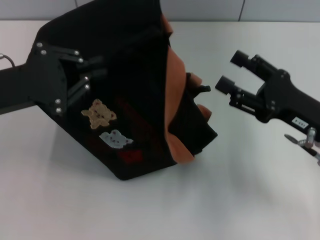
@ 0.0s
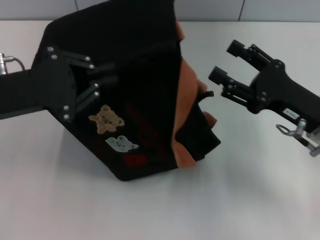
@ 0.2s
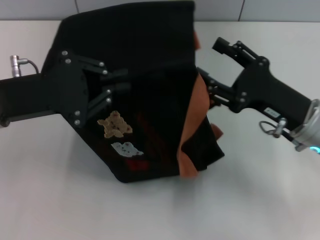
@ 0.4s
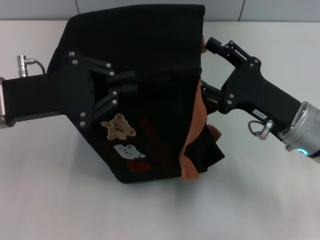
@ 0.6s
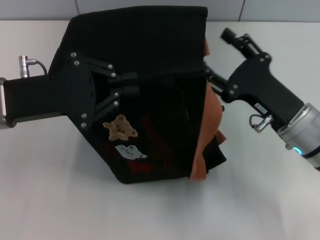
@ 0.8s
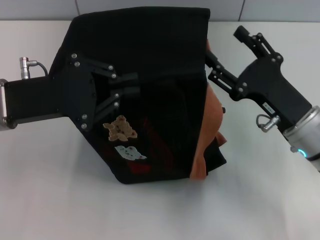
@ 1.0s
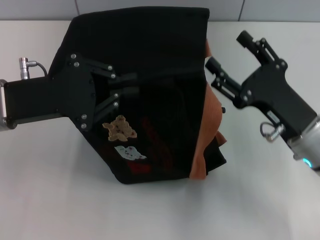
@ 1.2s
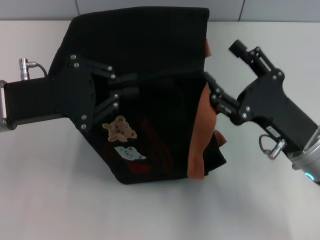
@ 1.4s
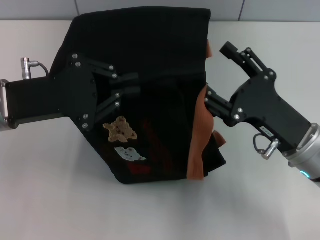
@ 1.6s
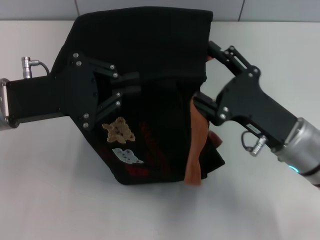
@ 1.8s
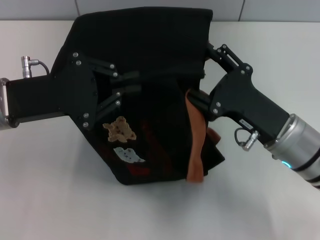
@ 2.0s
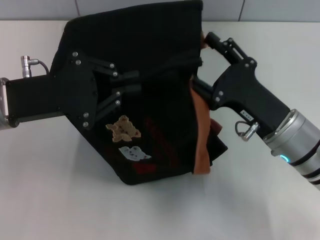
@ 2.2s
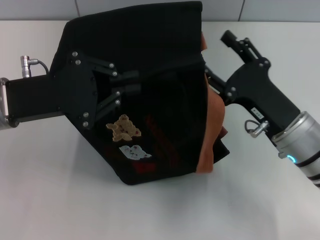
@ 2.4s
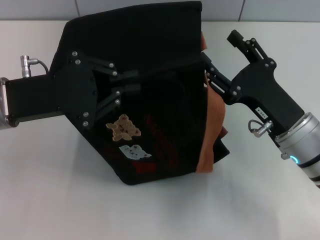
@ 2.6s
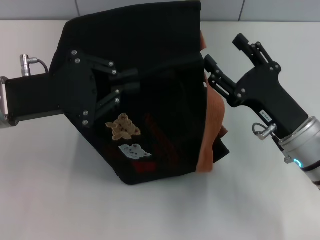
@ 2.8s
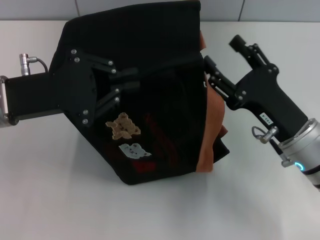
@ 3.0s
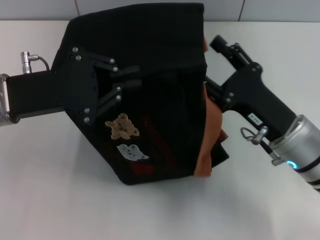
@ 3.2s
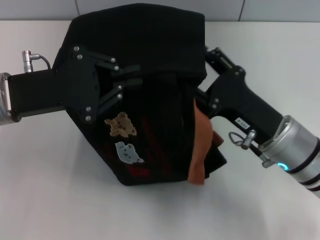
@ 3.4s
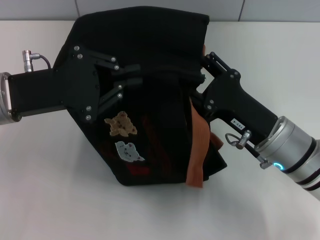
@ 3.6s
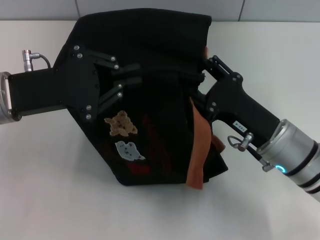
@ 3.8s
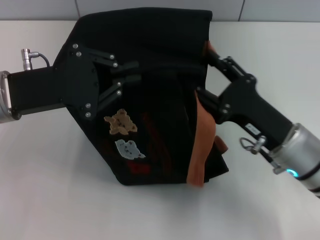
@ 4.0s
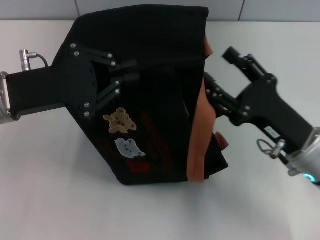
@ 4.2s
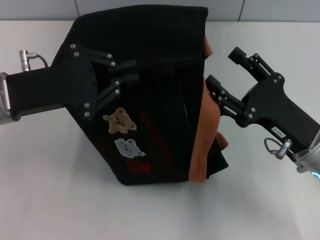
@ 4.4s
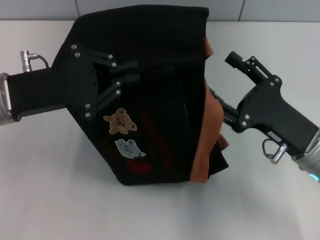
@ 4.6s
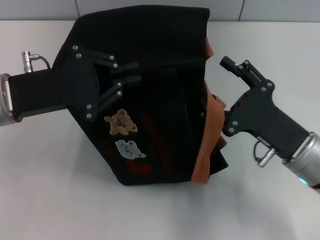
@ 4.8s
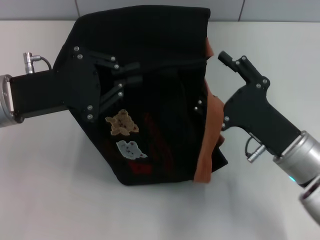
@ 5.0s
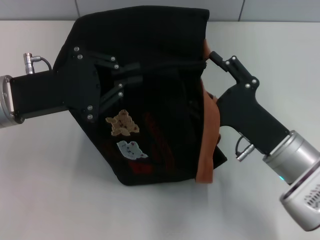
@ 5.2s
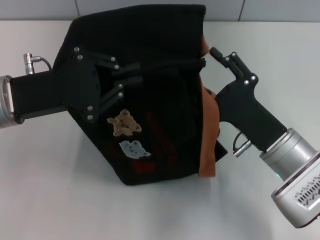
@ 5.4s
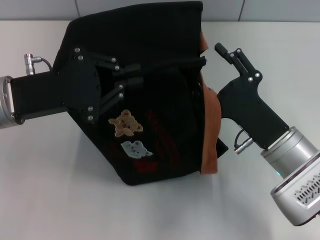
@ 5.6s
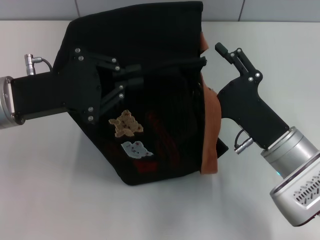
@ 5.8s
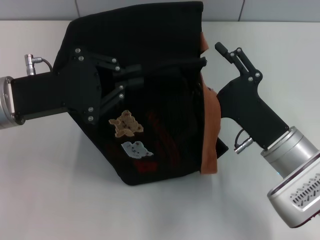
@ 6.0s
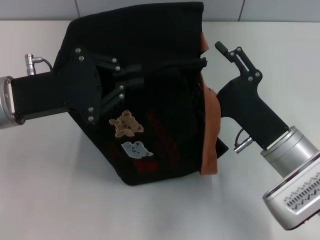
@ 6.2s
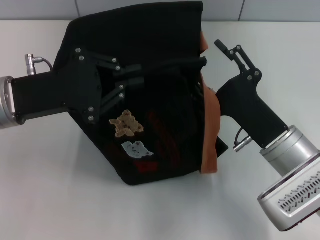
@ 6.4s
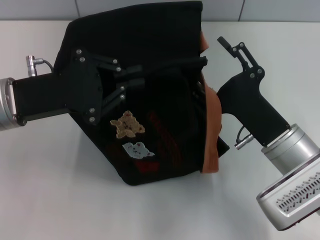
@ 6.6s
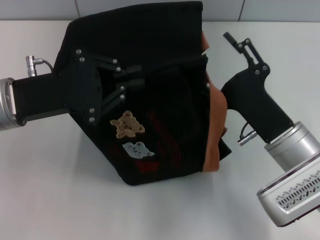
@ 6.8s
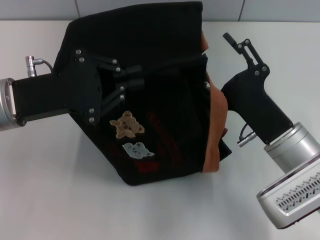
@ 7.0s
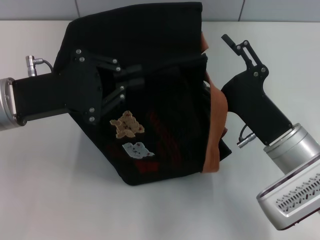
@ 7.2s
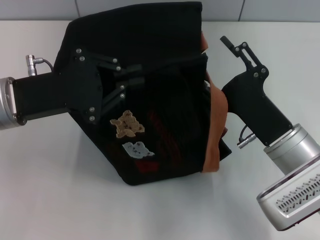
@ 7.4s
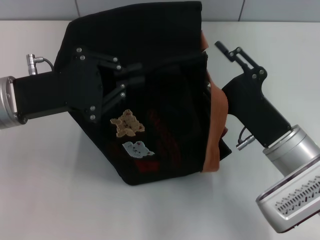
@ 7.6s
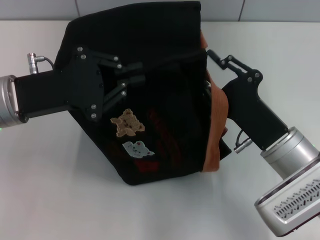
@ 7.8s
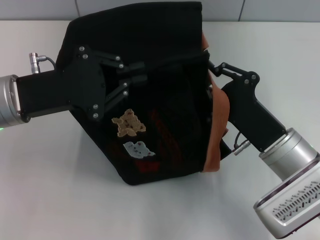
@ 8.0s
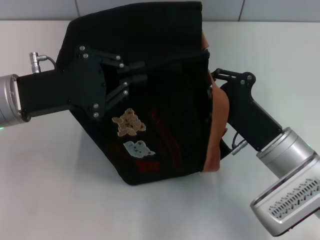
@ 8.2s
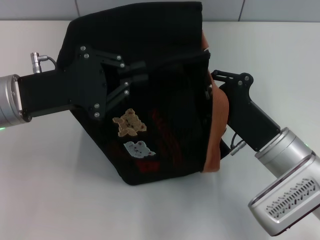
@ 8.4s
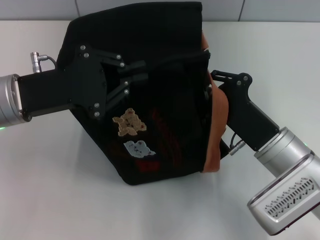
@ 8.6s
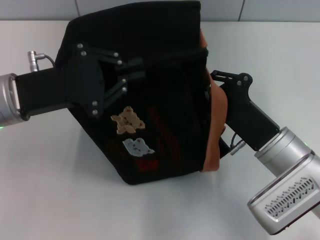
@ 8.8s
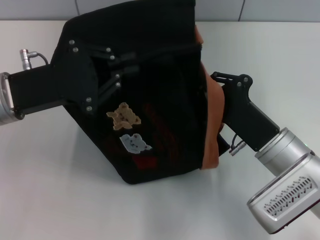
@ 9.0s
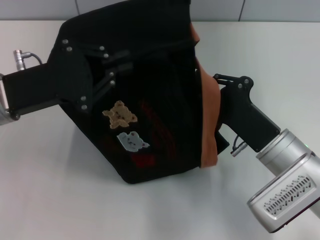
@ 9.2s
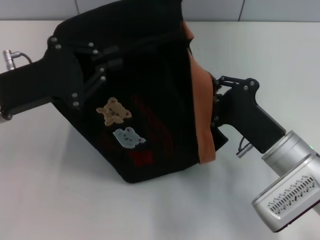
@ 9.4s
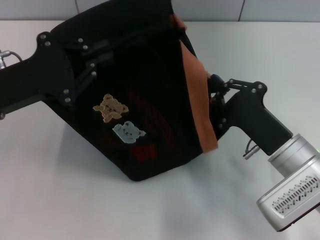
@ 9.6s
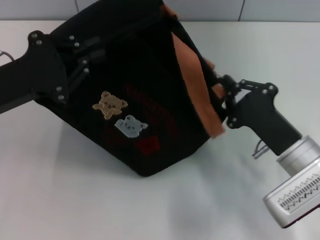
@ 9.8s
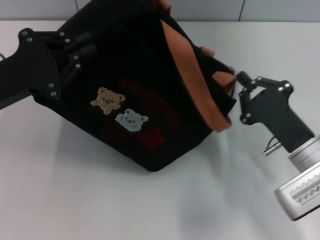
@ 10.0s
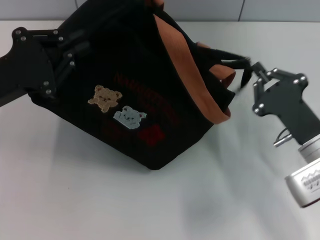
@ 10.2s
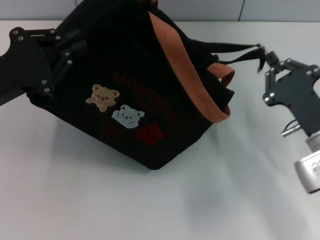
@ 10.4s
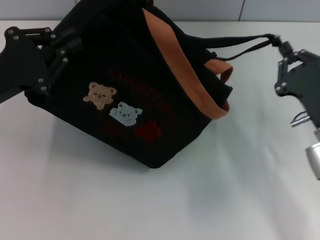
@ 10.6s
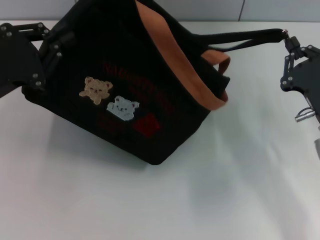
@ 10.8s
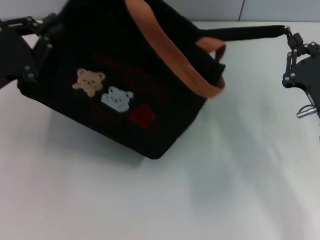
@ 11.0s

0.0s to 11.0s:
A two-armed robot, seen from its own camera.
Step, 0.0s to 10.6s: Pull open the zipper with your right hand.
0.0s to 1.6s: The right gripper ends up some 5 cm from where it was.
1.6s to 3.2s: The grippers make only small movements.
6.2s to 7.8s: The right gripper closes its fingers.
7.8s to 9.4s: The right gripper closes up.
9.4s to 11.0s: The right gripper goes some 5 cm to the right.

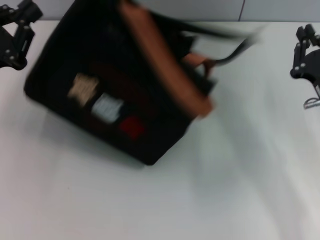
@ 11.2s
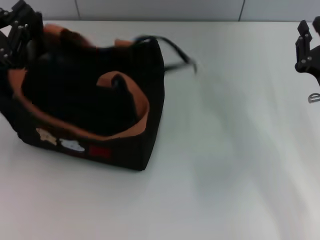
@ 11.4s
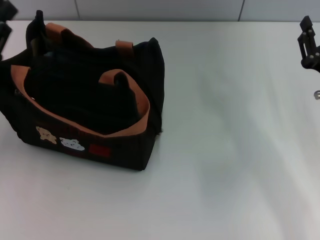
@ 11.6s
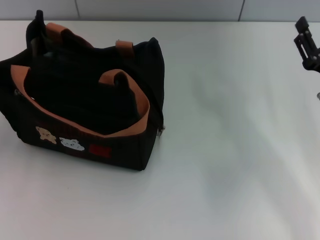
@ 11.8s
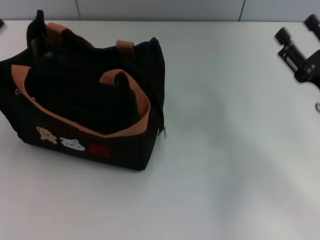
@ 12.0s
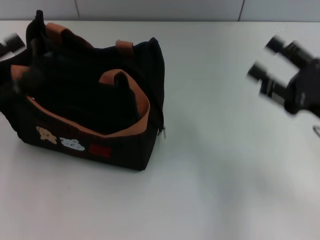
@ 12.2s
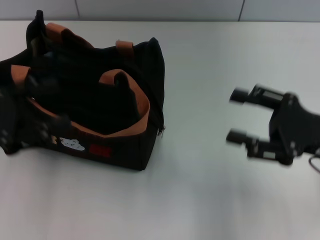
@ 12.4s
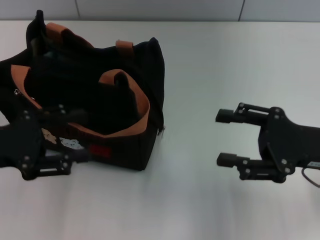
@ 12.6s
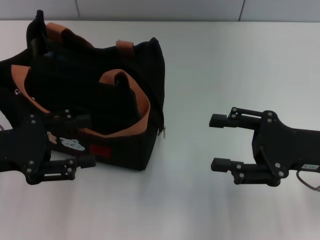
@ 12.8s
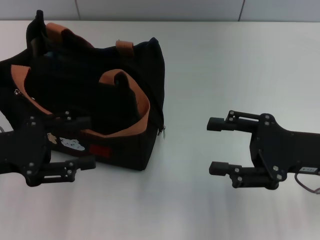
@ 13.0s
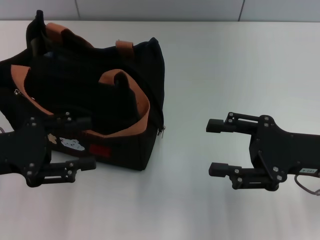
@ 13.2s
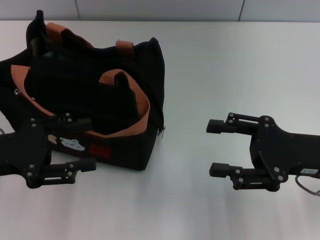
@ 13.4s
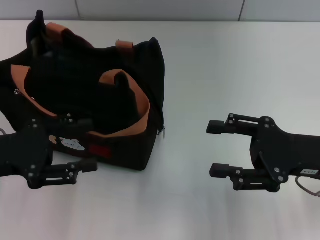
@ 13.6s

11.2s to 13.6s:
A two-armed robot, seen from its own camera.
11.2s to 12.4s: The right gripper ends up about 5 cm from where it was, and opens up. Meanwhile the left gripper opens up.
12.4s to 13.6s: The grippers move only a little.

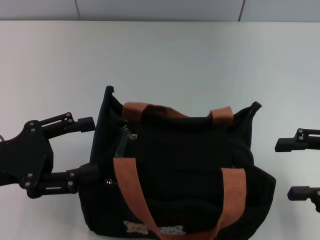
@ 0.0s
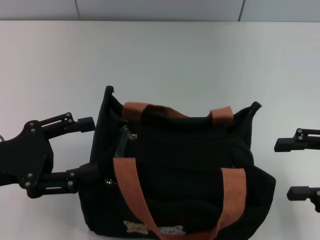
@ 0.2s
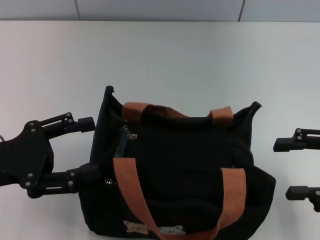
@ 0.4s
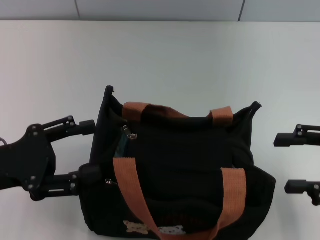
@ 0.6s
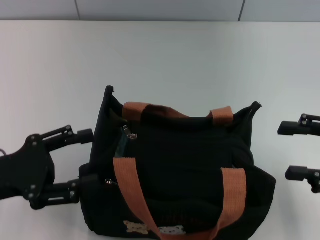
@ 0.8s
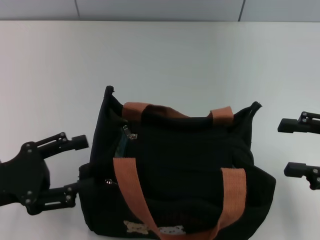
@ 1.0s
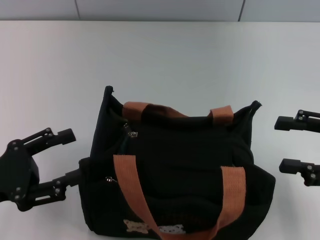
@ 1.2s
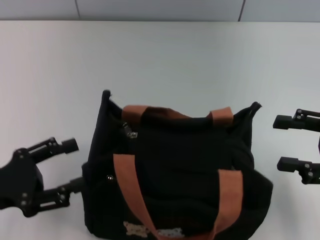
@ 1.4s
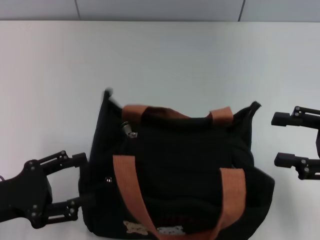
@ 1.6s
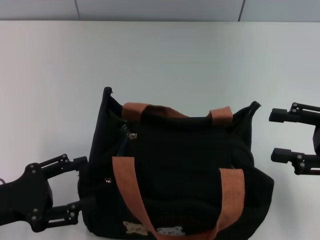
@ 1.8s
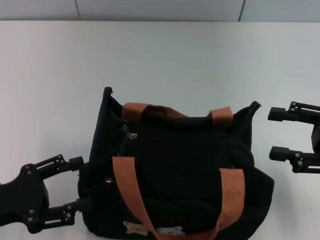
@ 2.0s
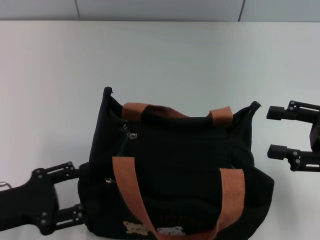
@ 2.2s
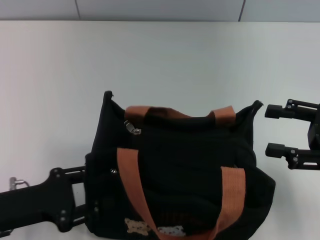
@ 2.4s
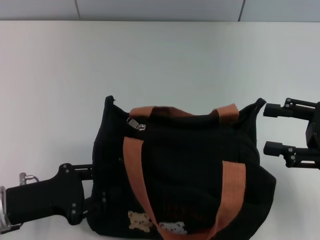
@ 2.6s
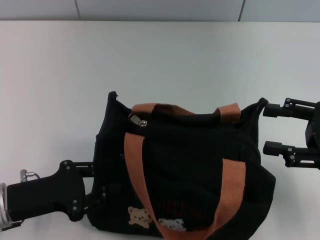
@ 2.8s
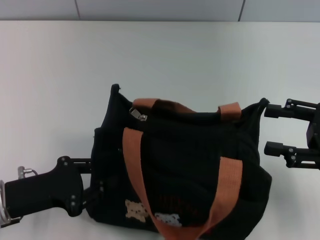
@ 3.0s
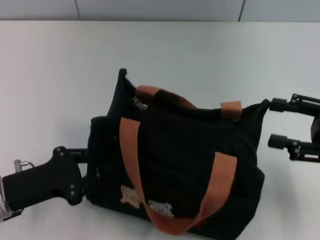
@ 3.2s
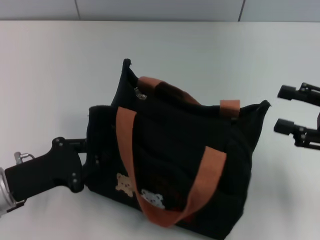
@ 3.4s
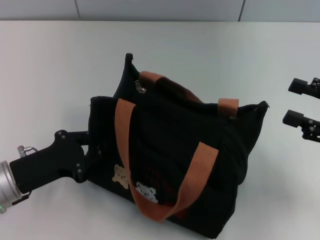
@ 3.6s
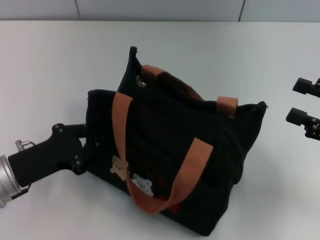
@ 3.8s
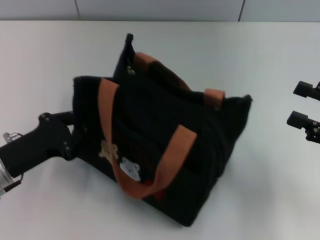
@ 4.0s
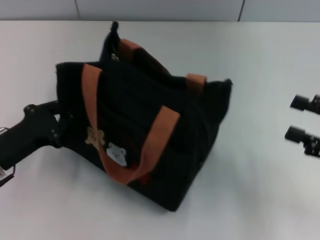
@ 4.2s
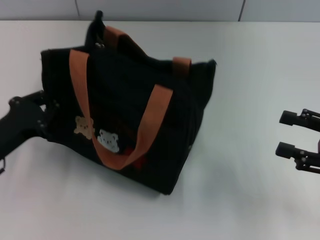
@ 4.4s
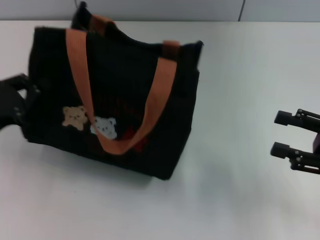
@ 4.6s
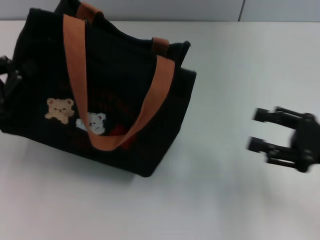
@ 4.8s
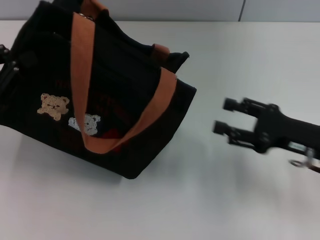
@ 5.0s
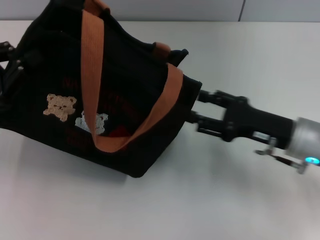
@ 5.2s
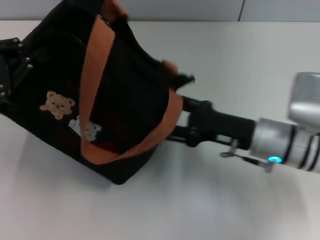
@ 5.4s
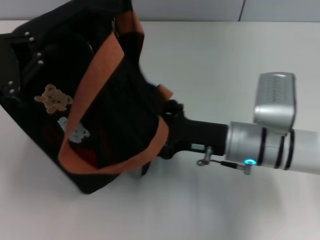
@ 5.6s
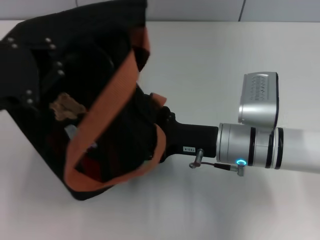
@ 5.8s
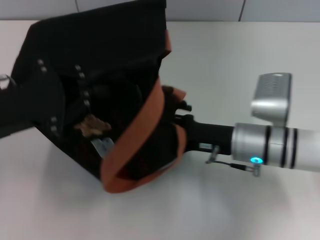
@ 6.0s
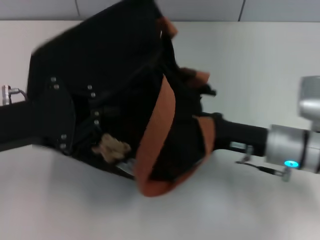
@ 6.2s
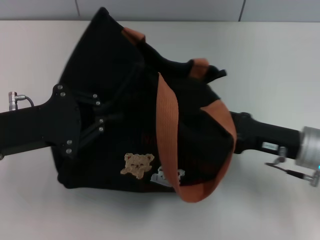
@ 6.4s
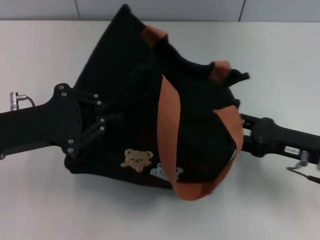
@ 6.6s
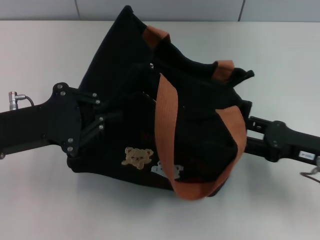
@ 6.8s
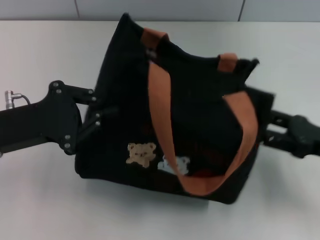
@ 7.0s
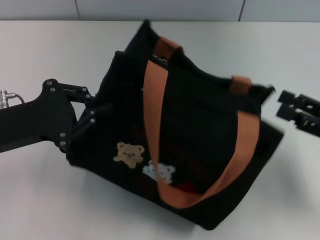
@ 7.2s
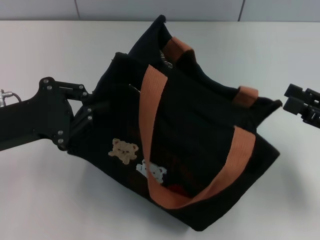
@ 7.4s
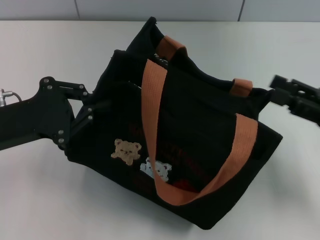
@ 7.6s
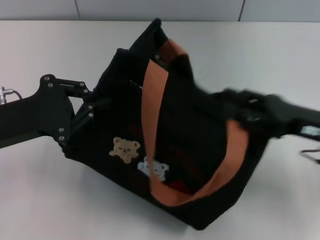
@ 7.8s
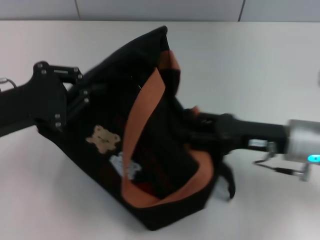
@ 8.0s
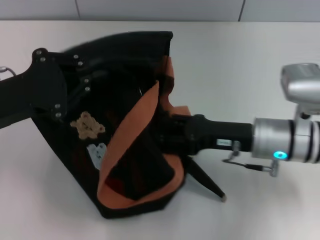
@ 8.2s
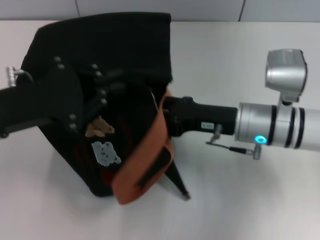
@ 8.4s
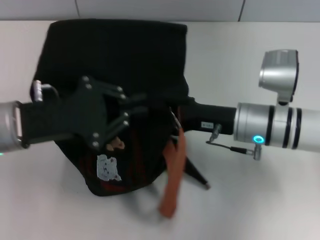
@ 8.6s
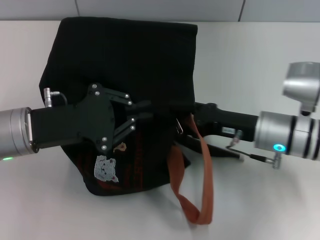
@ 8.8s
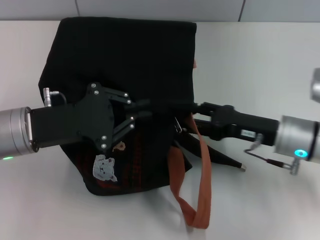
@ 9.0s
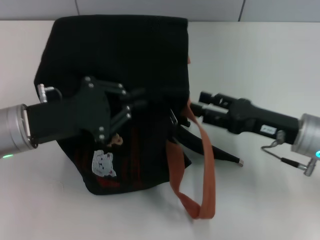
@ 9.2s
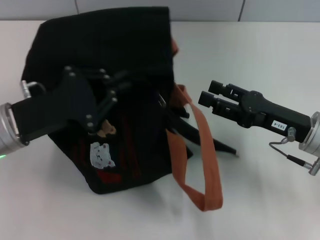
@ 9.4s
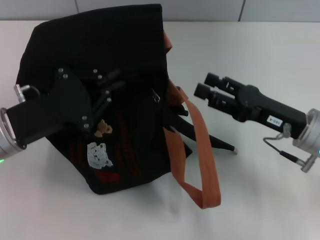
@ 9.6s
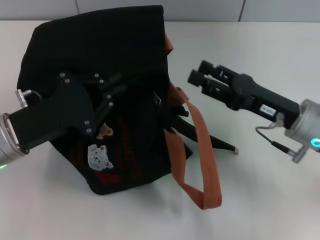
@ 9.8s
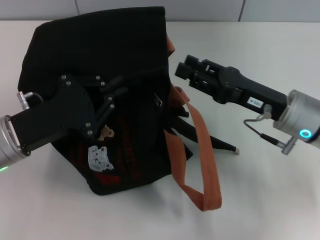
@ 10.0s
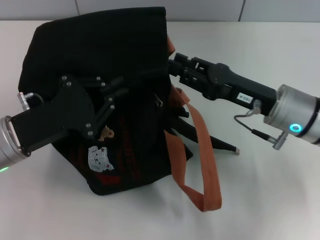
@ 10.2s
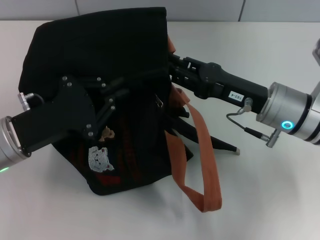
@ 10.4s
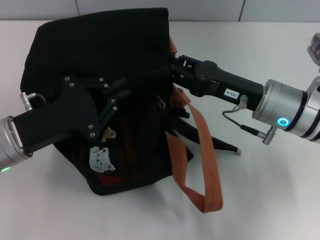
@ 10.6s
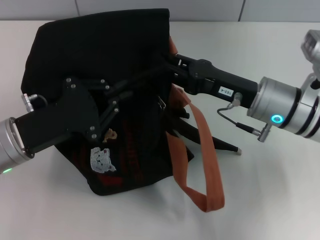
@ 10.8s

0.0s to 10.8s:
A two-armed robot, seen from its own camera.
0.0s to 1.6s: The left gripper changes place by some 5 cm.
1.6s to 3.0s: The left gripper closes its fingers.
3.0s to 4.6s: The left gripper ends up some 5 cm from where it was.
4.6s to 6.2s: The left gripper goes some 10 cm to the right and upward; the right gripper moves to the left and forward, about 15 cm.
6.2s to 7.8s: The right gripper heads to the right, covering some 5 cm.
7.8s to 9.2s: The right gripper goes to the left and returns, roughly 10 cm each way.
9.2s to 10.8s: The right gripper travels to the left by some 5 cm, and closes up.
